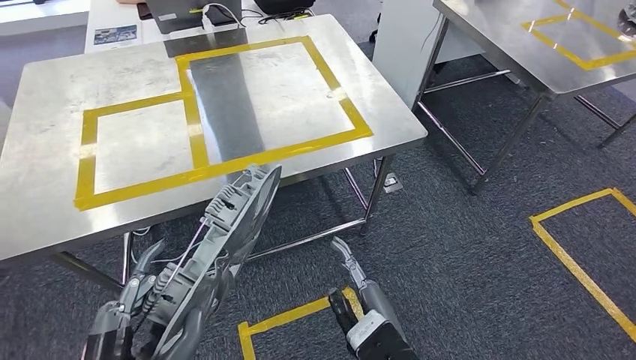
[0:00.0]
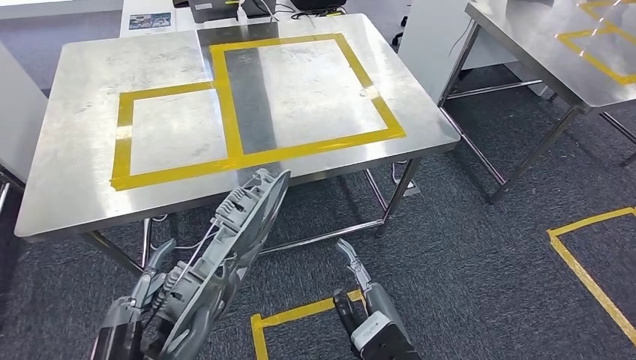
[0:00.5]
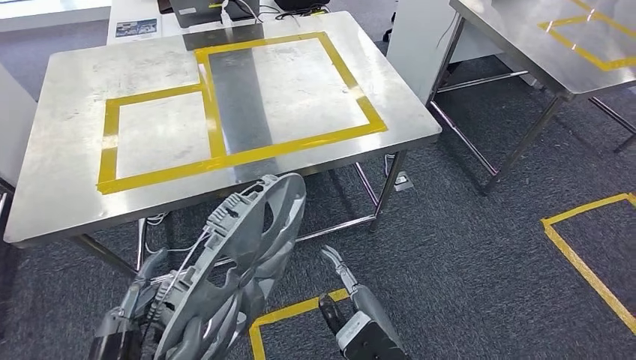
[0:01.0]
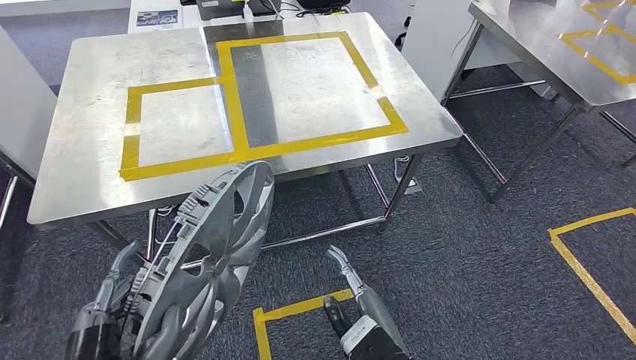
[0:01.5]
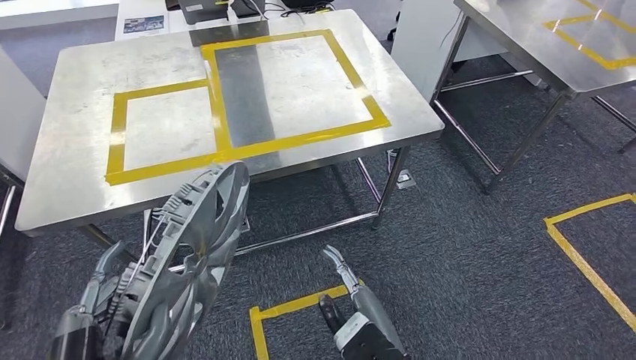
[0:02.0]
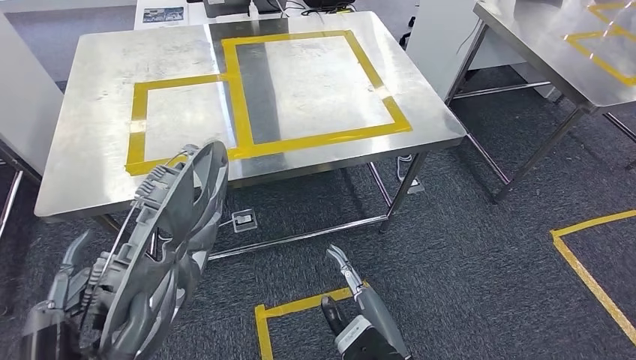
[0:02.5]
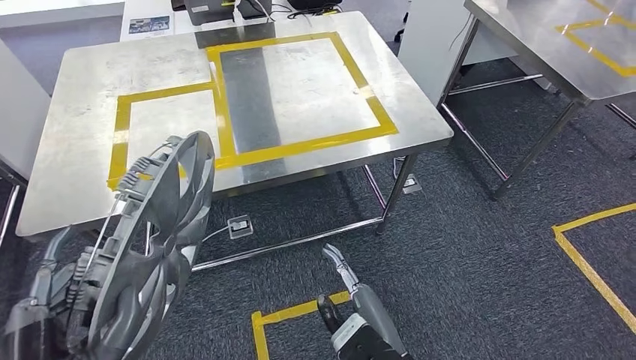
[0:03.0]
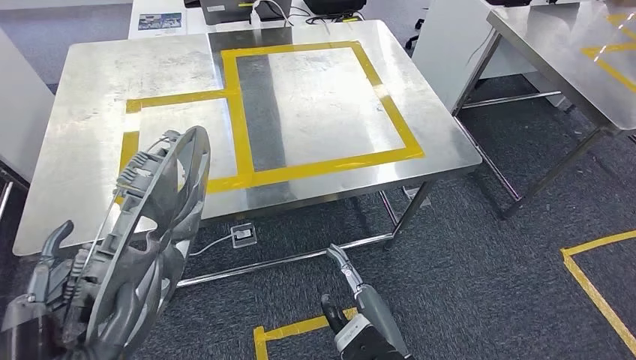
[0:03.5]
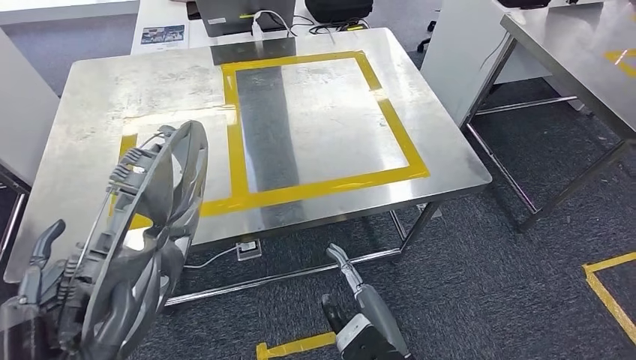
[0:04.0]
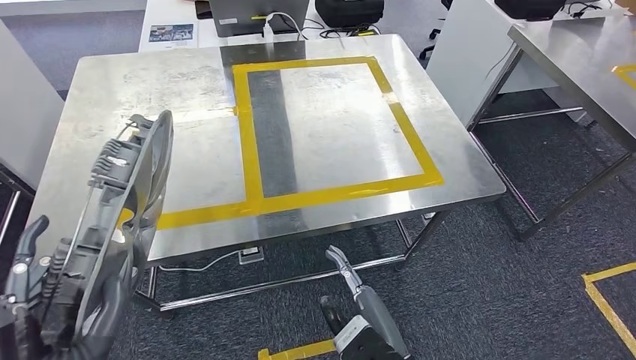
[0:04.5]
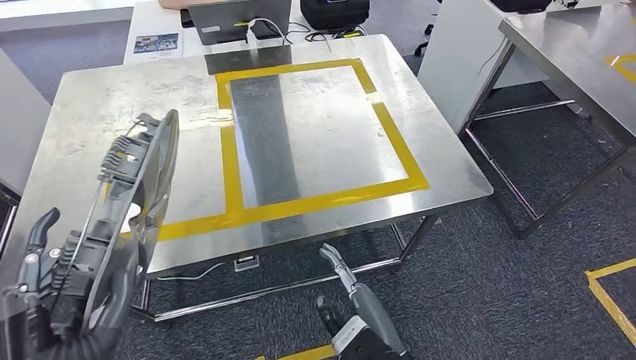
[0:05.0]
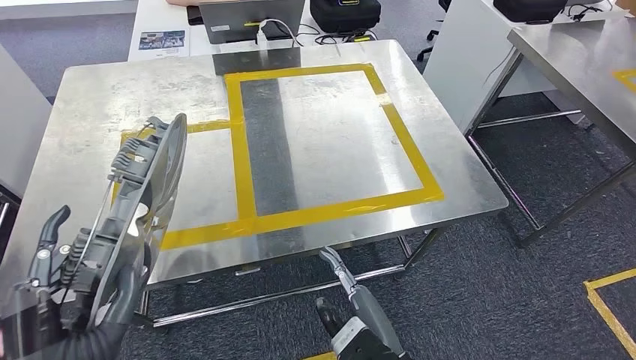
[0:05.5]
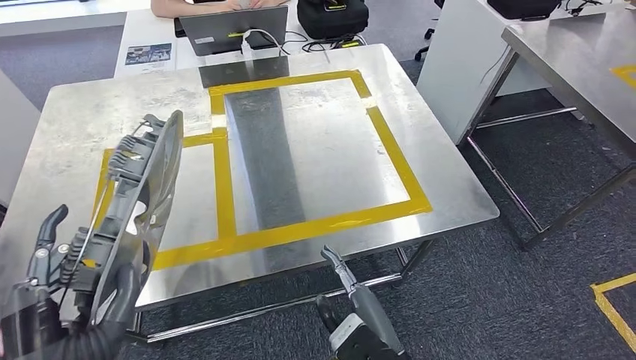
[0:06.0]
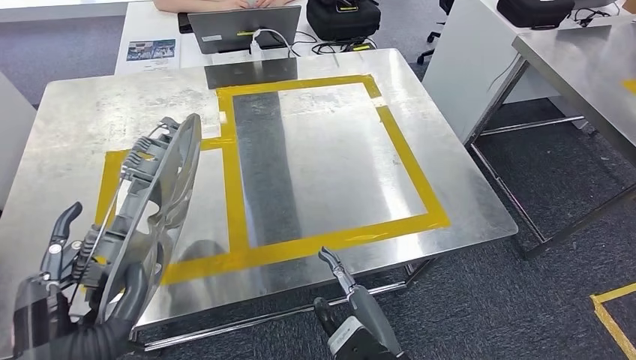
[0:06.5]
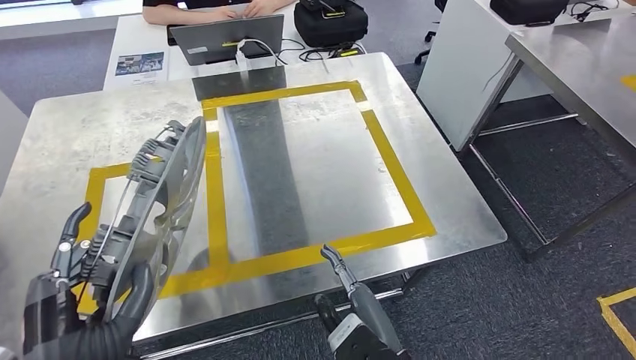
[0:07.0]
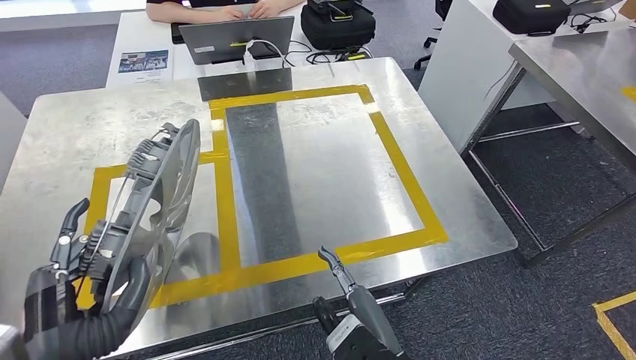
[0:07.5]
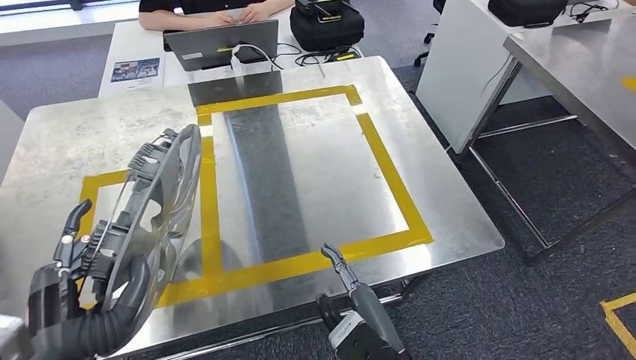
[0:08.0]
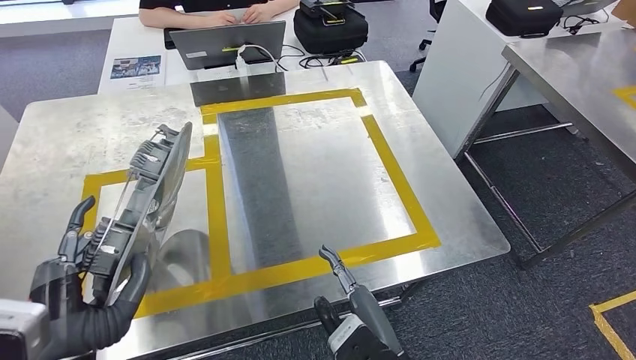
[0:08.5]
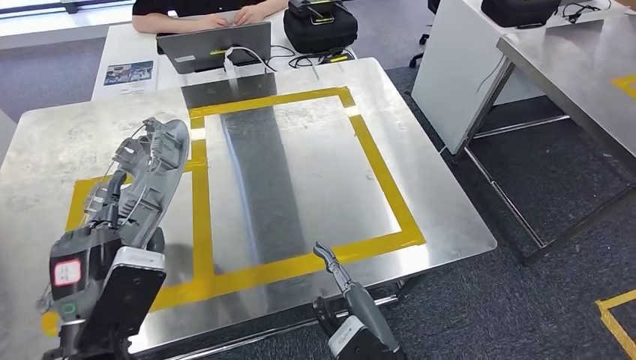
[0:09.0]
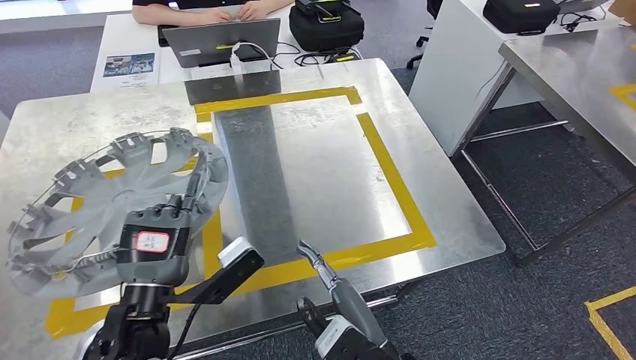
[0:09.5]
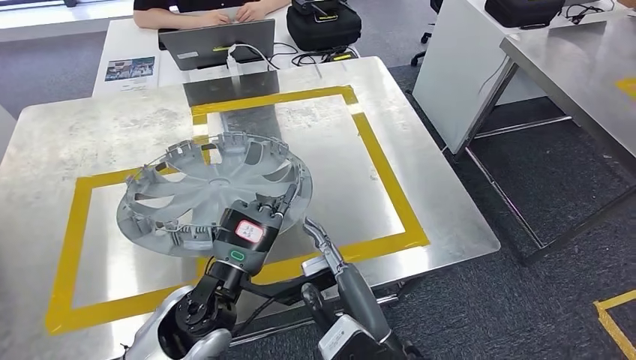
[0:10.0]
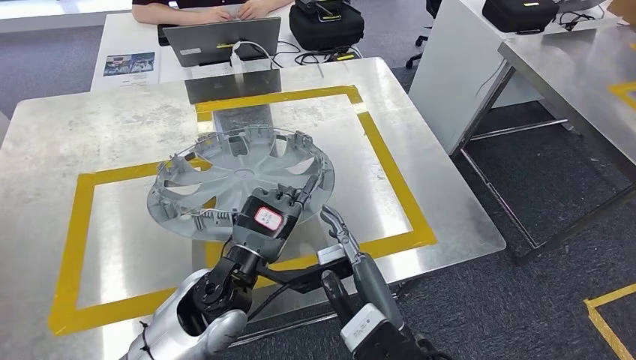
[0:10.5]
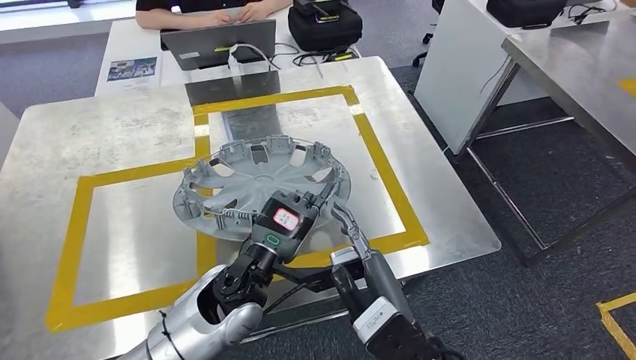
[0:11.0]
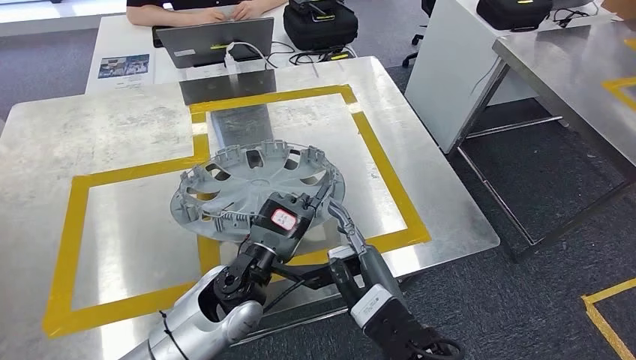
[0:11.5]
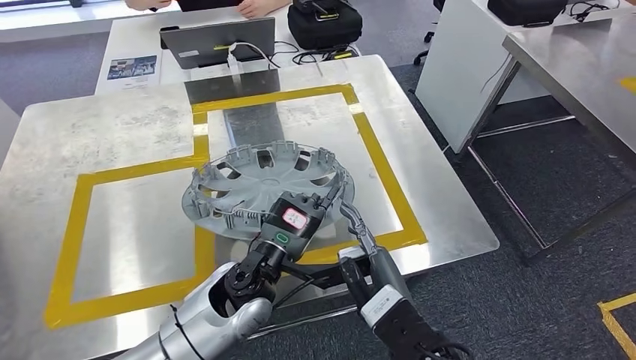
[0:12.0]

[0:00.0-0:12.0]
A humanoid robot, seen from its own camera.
Step, 0:00.0 to 0:05.5: Move the small parts to the workbench.

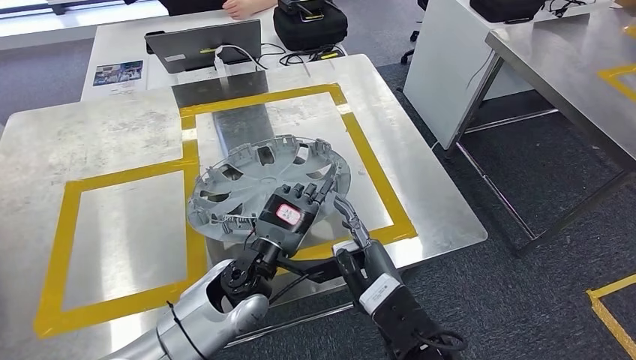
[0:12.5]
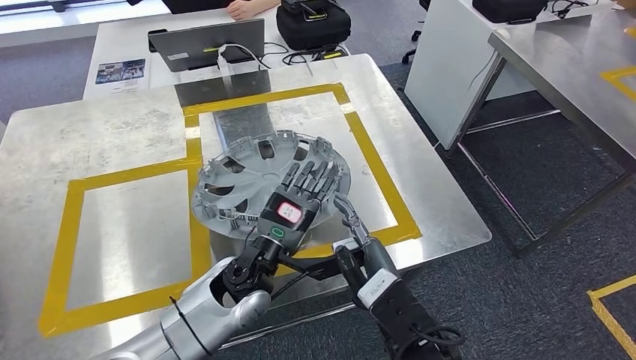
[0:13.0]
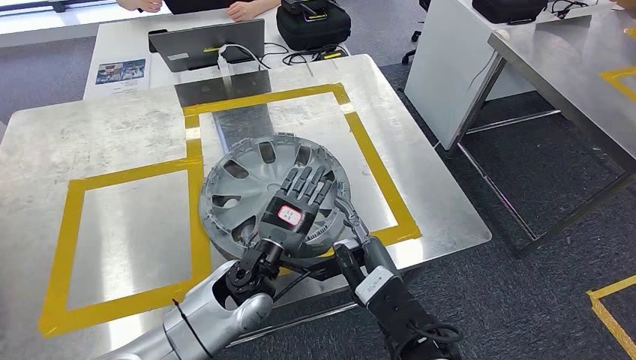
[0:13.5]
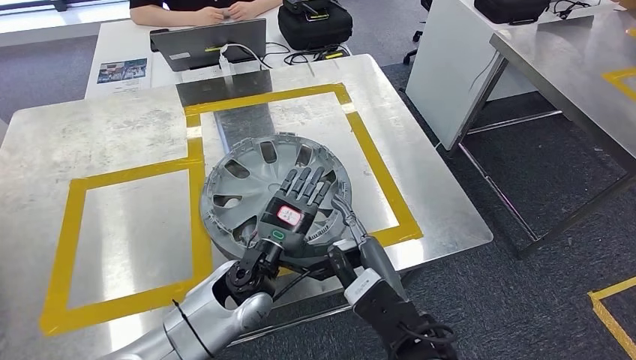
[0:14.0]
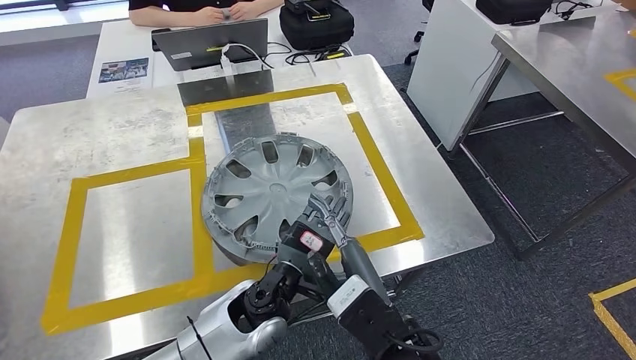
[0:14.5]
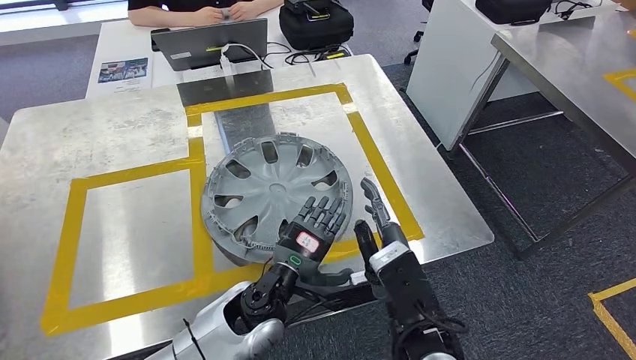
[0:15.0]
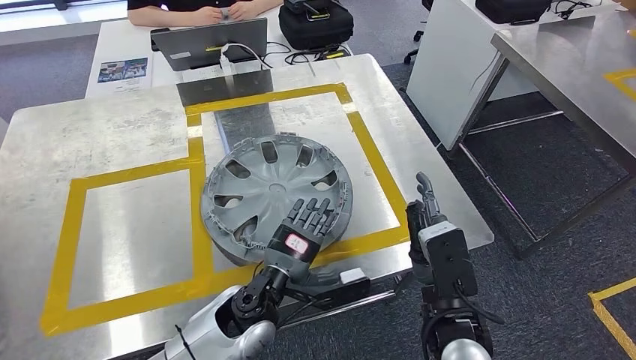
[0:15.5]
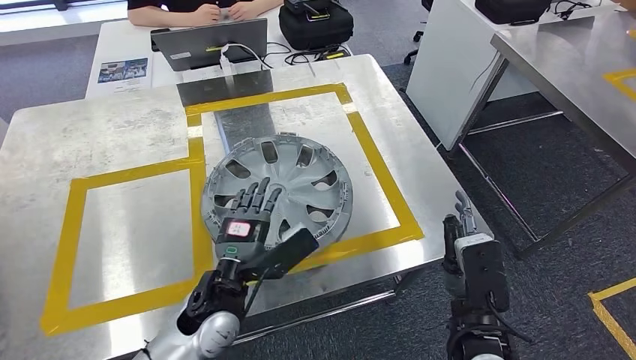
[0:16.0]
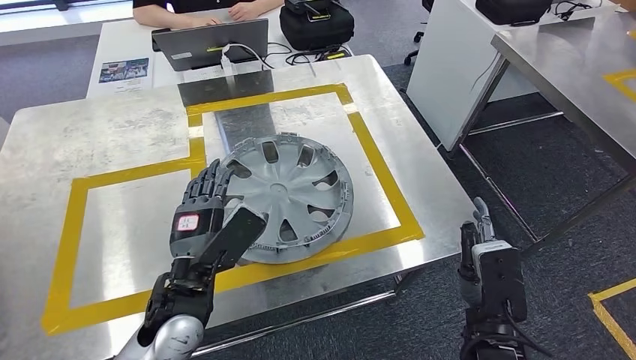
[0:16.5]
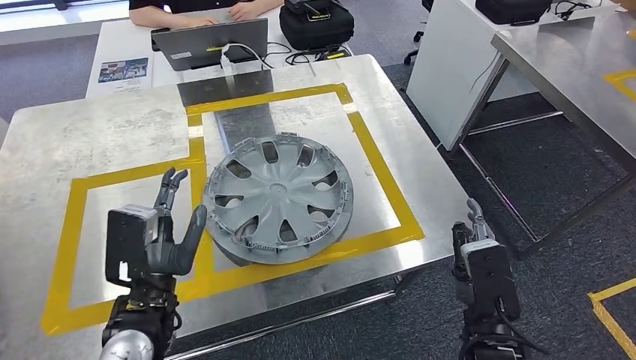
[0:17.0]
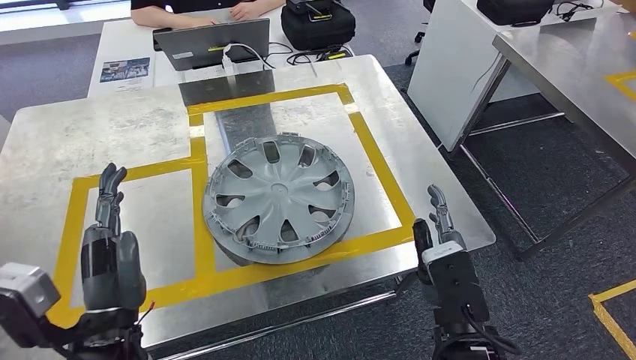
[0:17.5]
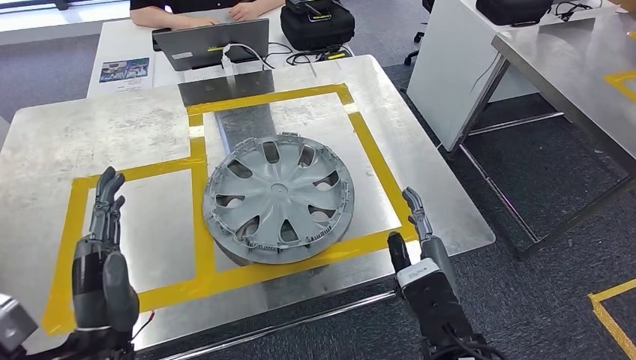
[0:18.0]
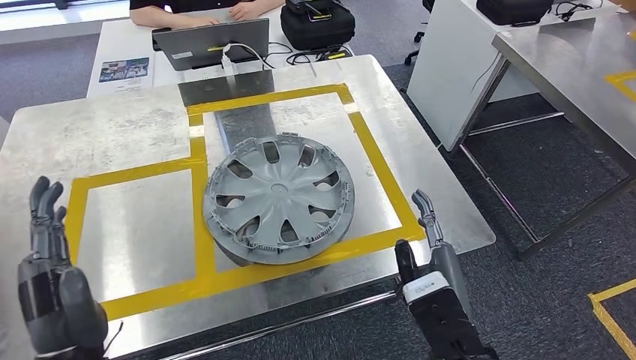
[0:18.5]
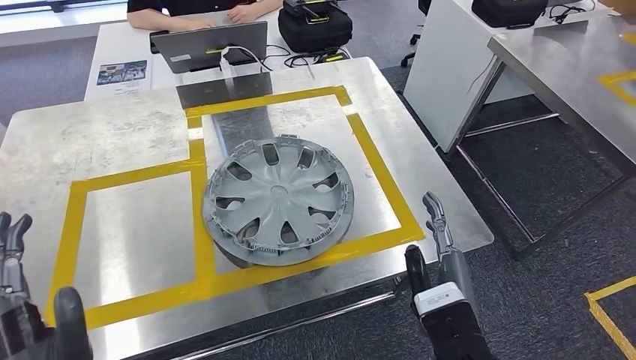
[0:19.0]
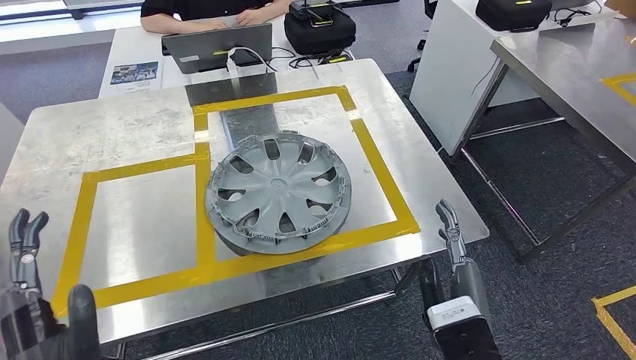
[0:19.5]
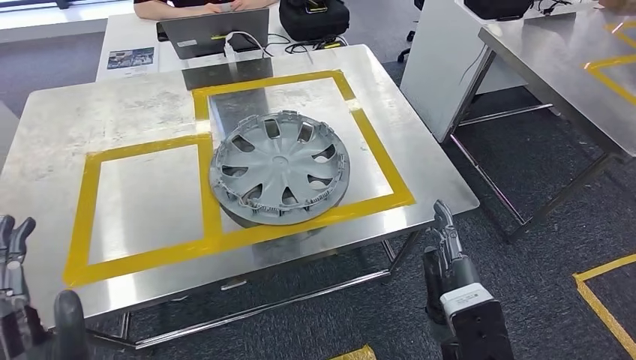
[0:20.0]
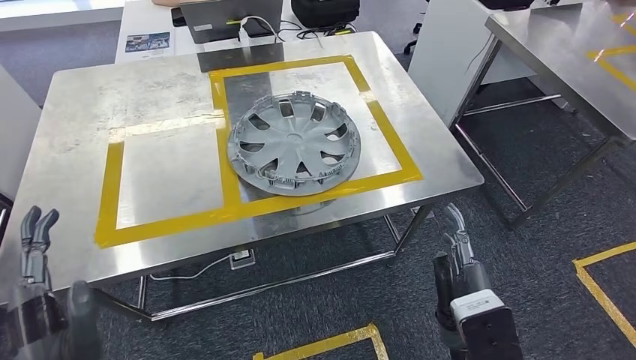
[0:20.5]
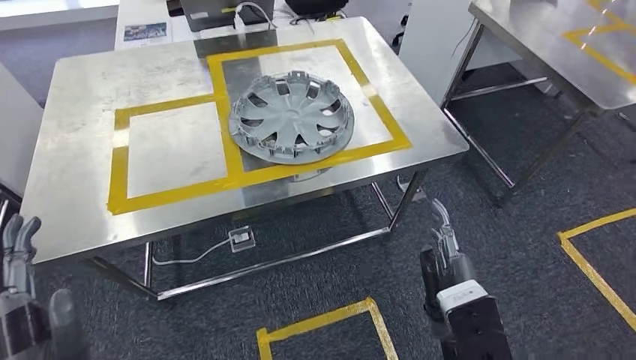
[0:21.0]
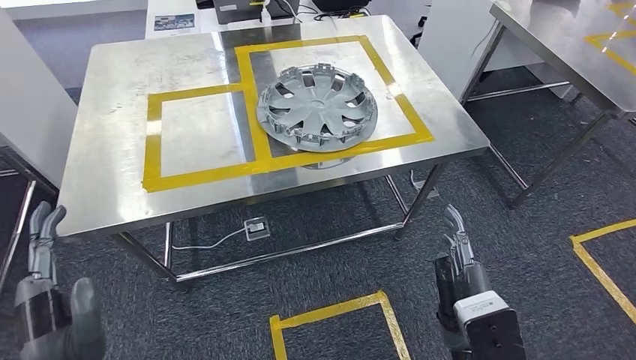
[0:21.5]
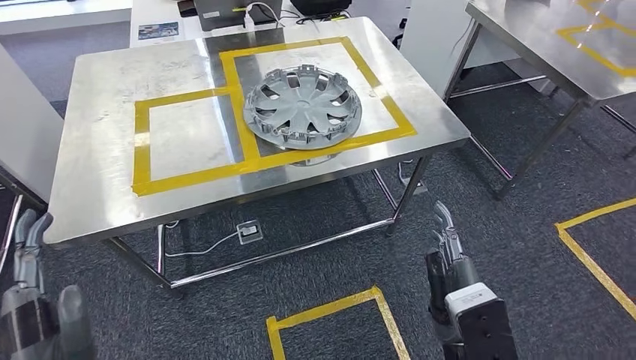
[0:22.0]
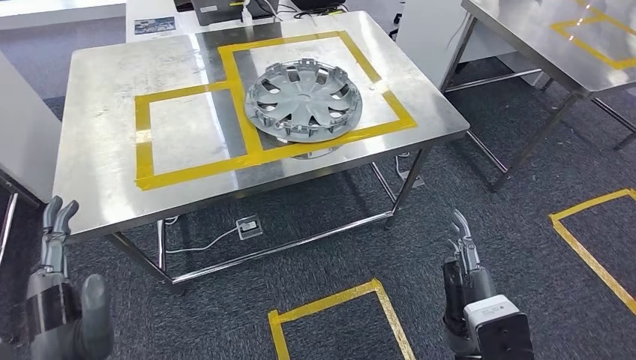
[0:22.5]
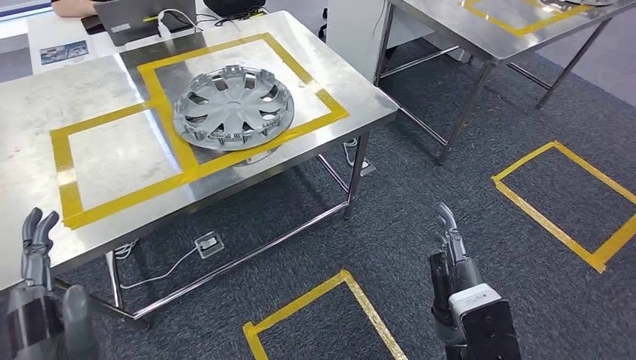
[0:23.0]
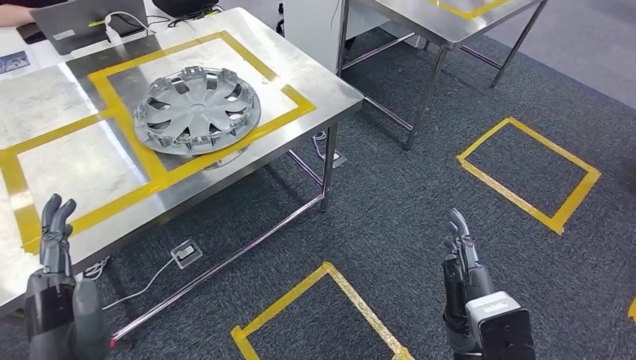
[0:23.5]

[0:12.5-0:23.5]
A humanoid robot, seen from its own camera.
Step, 0:12.5 to 0:15.5: Insert the small parts into the corresponding holes on the workbench.
0:14.5 to 0:16.0: The left hand goes about 5 cm to the left. Meanwhile the right hand heads to the right, covering approximately 10 cm.
0:16.0 to 0:18.0: The left hand travels to the left, backward and upward by roughly 15 cm; the right hand changes place by about 5 cm.
